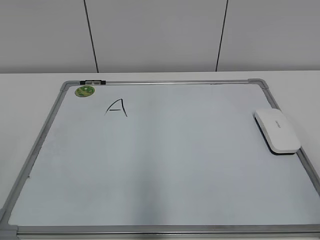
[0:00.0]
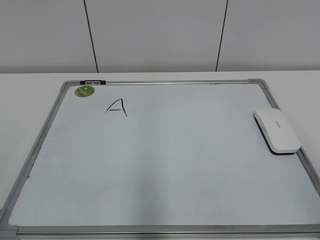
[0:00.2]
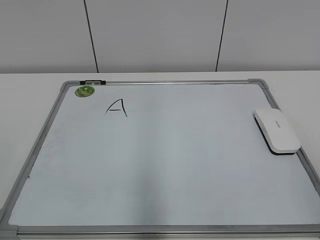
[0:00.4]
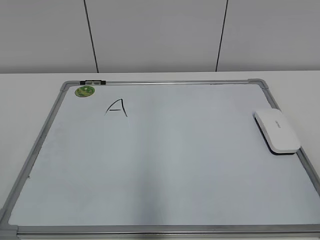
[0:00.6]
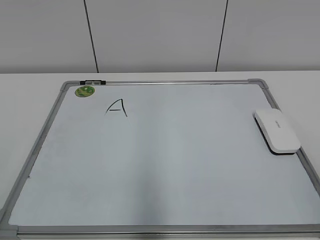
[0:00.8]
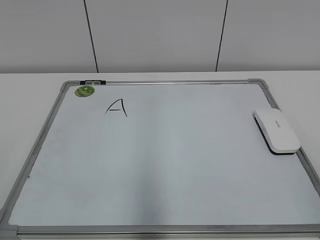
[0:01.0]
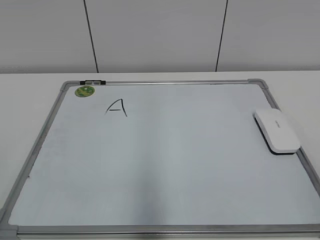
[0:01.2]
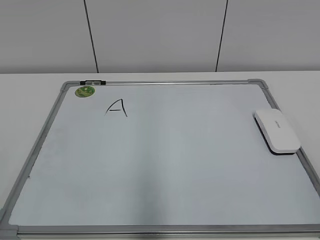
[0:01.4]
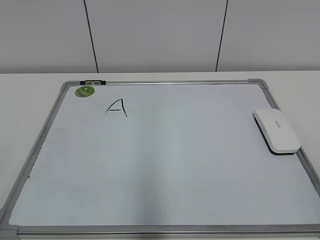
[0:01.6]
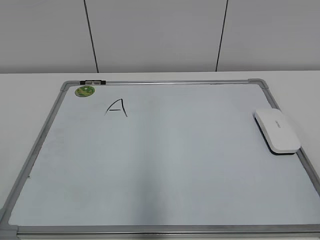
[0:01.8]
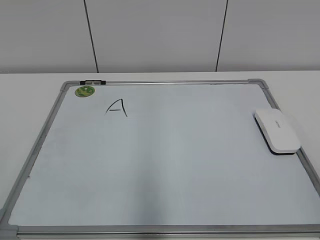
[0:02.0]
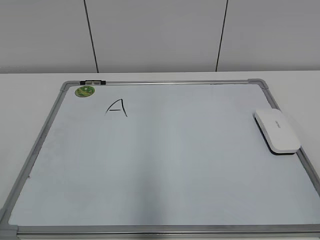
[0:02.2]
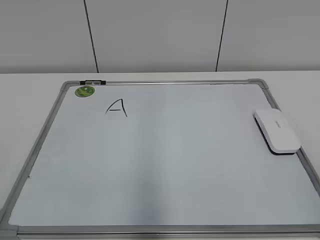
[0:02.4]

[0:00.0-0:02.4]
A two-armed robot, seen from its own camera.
Task of the whole recording: pick up the eraser on the blackboard and erase the letter "a".
0:01.2 to 0:02.4: The two grippers keep their place.

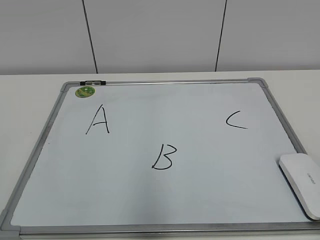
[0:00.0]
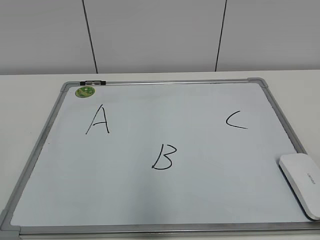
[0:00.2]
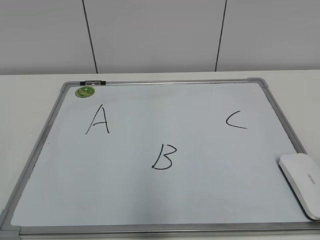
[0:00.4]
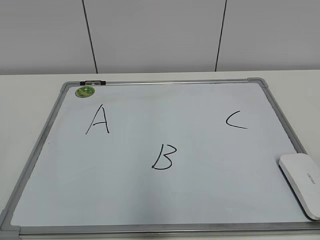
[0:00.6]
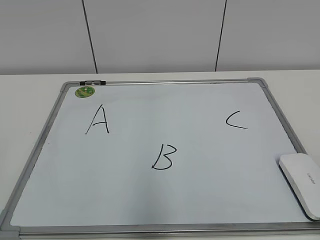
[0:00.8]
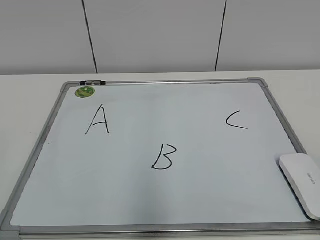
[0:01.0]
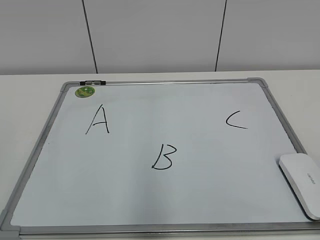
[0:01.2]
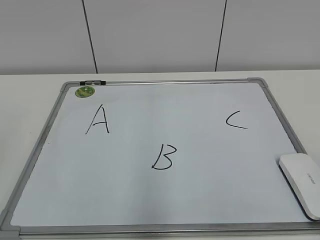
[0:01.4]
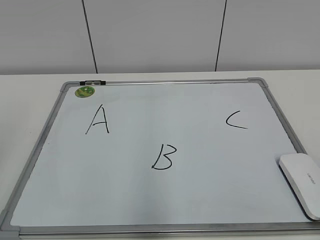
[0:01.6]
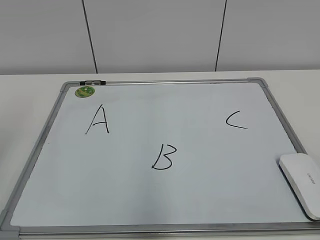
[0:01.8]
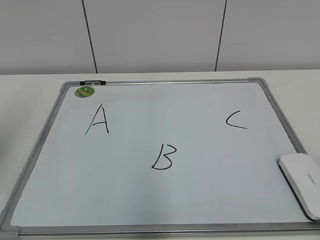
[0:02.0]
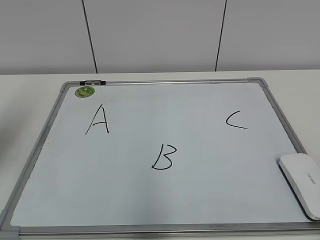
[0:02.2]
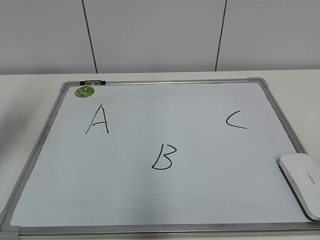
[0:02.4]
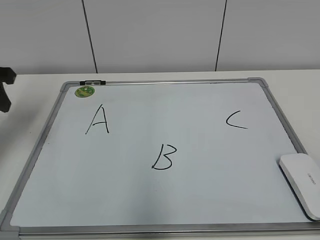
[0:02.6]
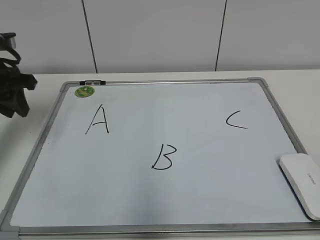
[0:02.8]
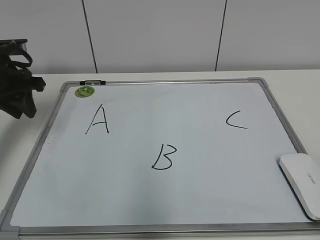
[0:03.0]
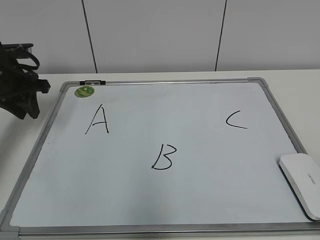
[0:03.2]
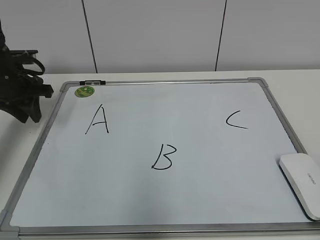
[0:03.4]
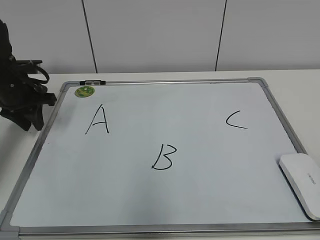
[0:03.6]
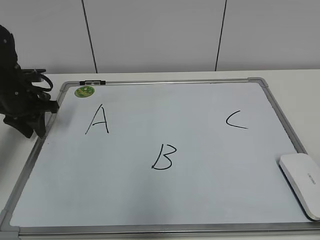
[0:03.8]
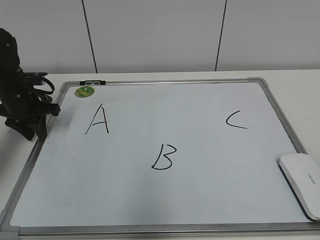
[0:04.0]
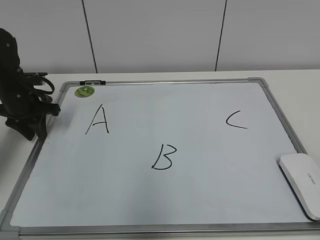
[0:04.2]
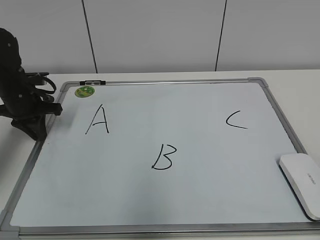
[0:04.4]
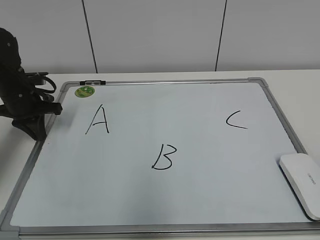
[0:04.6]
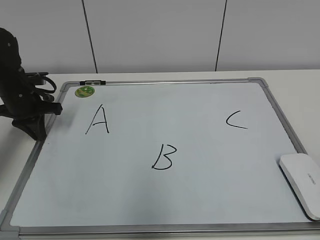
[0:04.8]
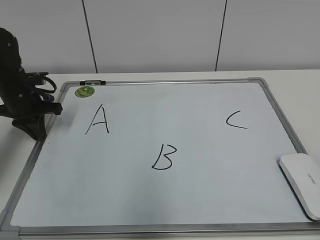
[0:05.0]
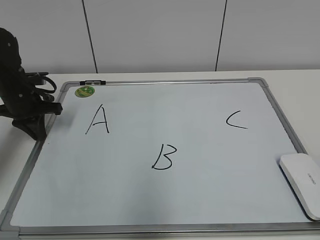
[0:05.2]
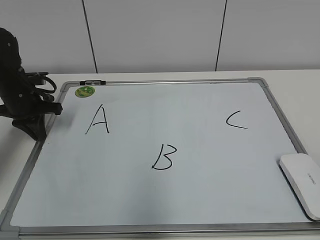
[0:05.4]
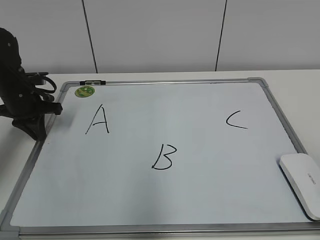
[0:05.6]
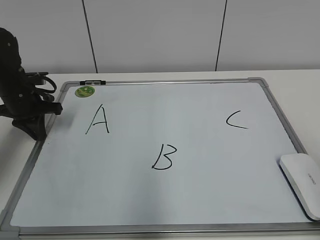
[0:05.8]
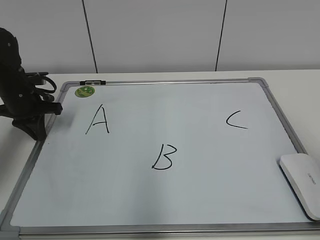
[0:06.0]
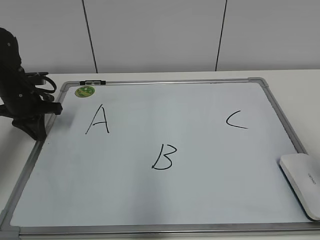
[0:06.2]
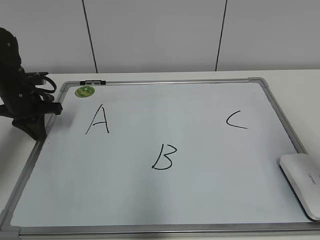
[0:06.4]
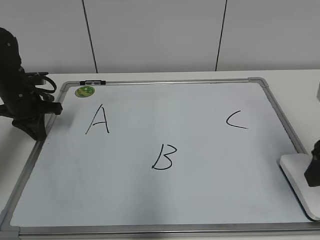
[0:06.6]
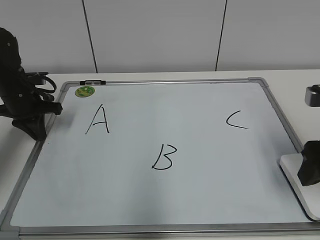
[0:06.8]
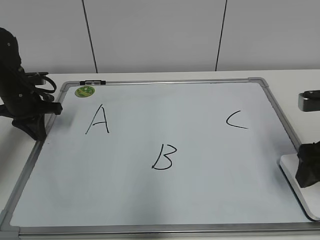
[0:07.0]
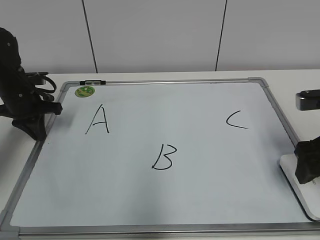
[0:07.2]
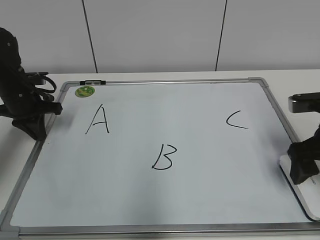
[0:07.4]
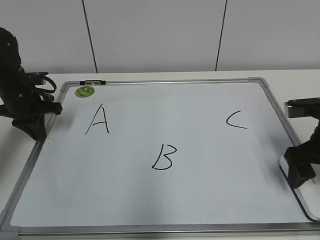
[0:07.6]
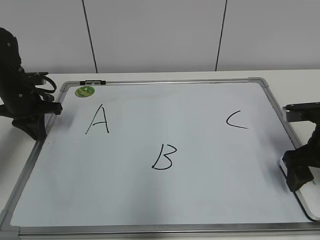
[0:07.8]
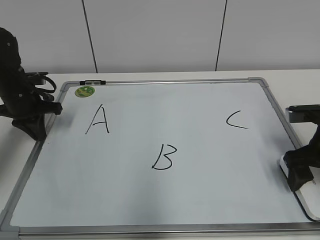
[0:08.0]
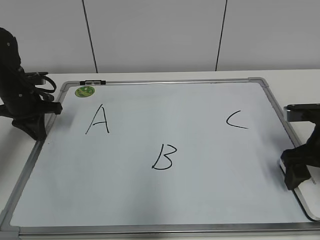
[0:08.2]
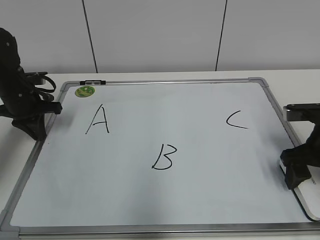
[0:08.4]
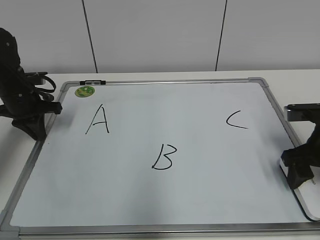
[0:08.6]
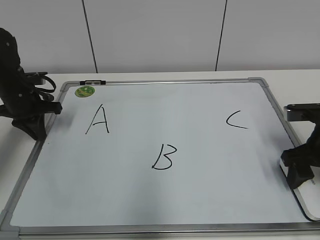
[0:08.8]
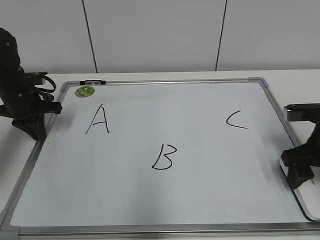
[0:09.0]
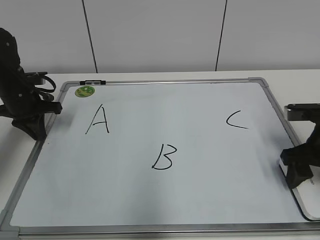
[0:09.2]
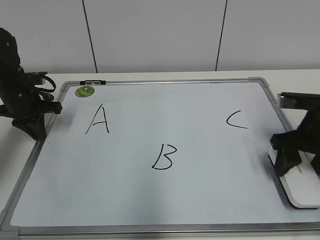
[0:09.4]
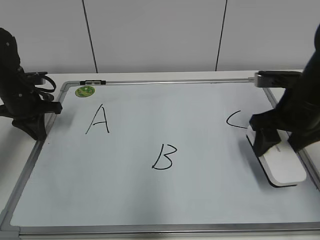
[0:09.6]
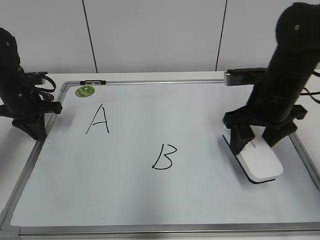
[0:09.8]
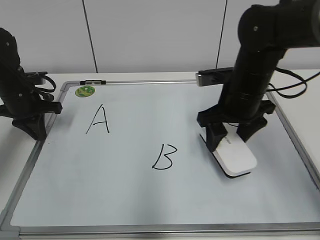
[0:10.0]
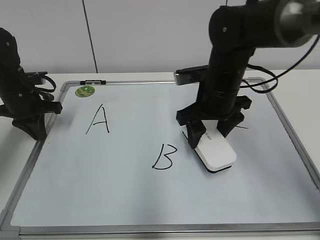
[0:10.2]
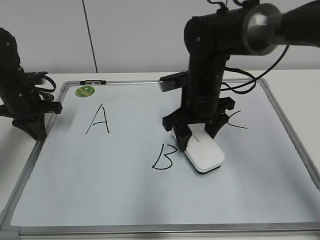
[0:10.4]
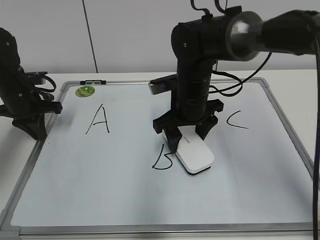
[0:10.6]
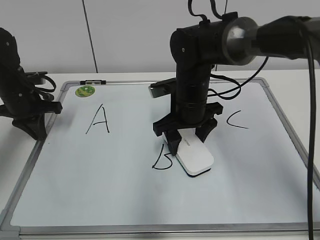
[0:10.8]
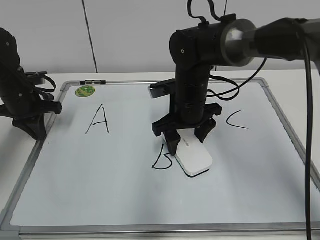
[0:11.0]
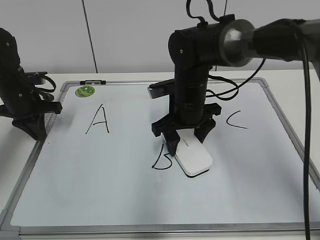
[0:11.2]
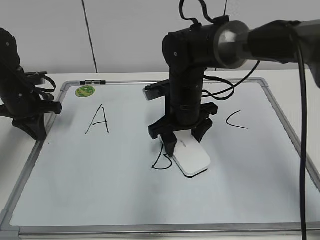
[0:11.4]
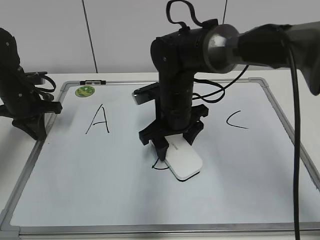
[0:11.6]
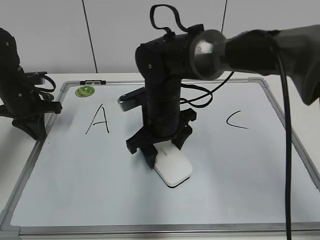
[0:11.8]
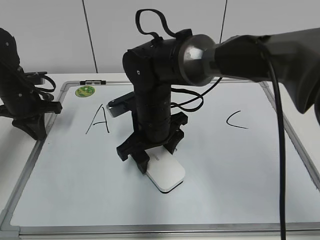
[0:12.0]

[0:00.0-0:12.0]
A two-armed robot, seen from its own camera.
Task of the whole recording: pick up the eraser on the blackboard and erase the letter "B".
Step, 0:00.0 to 0:04.4: Hold the drawing board steady with your left hand.
Step, 0:04.8 to 0:09.0: Grab the eraser with your right hand.
0:01.6 to 0:03.0: The left gripper heads forward, covering about 30 cm.
0:03.0 to 0:04.4: The left gripper travels downward by about 10 cm, and closes its fingers.
0:06.0 to 0:07.6: The right gripper shifts about 20 cm forward and downward, and opens up.
0:07.6 to 0:09.0: The right gripper closes.
0:09.0 to 0:10.4: The right gripper moves to the left and forward, roughly 20 cm.
0:10.4 to 0:12.0: The right gripper shifts approximately 10 cm to the left.

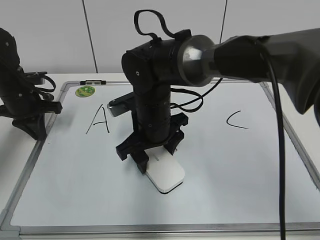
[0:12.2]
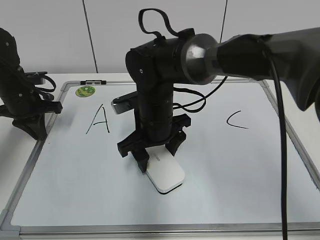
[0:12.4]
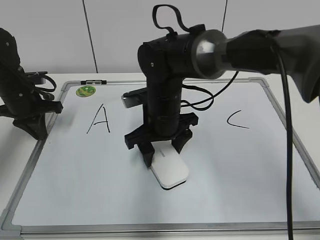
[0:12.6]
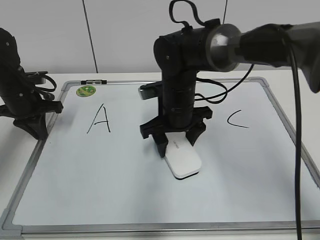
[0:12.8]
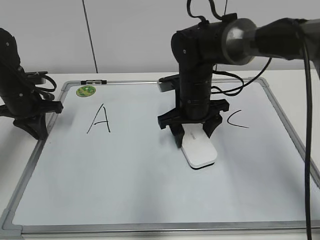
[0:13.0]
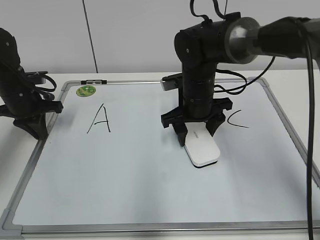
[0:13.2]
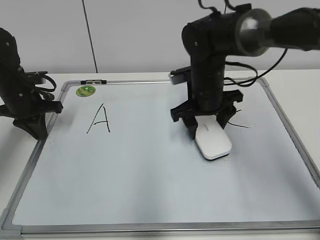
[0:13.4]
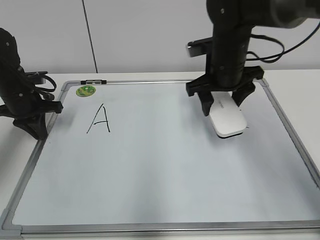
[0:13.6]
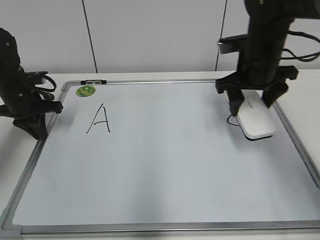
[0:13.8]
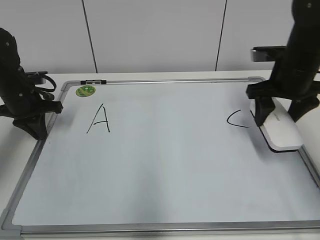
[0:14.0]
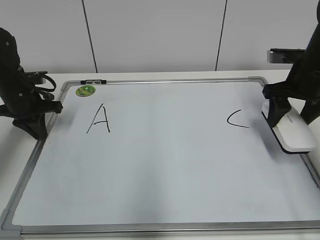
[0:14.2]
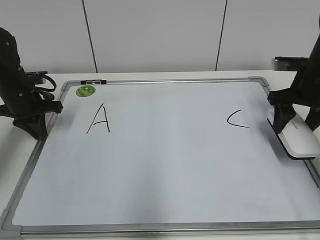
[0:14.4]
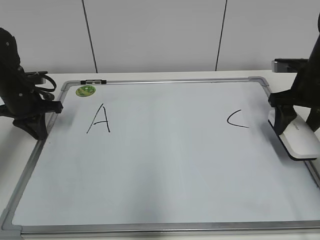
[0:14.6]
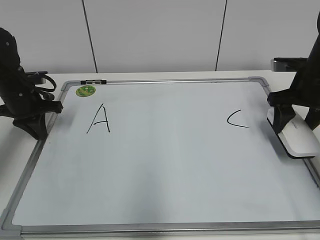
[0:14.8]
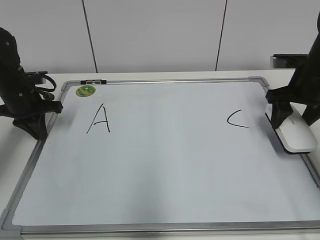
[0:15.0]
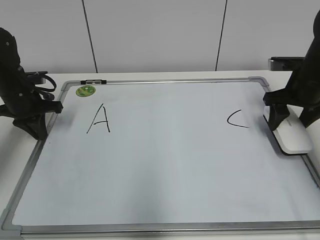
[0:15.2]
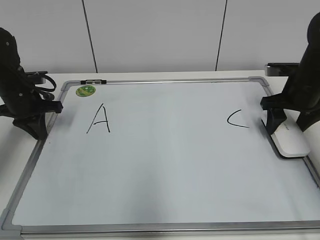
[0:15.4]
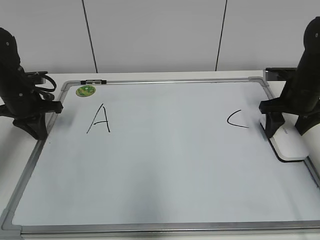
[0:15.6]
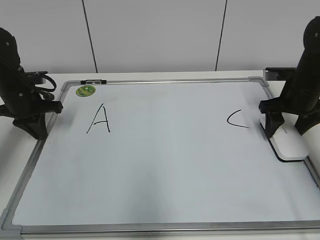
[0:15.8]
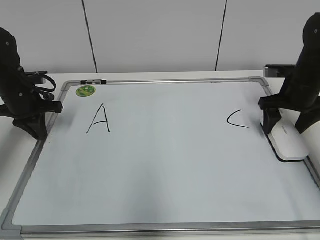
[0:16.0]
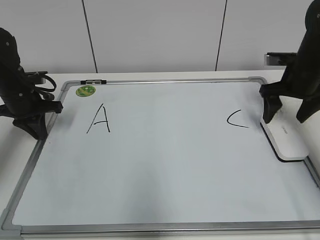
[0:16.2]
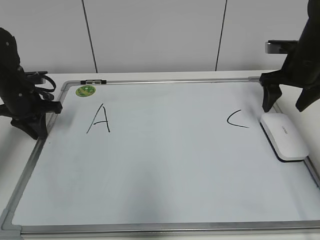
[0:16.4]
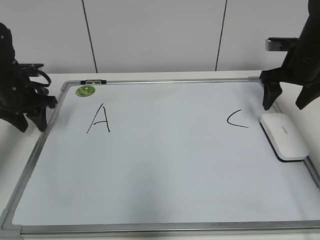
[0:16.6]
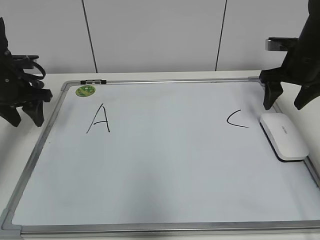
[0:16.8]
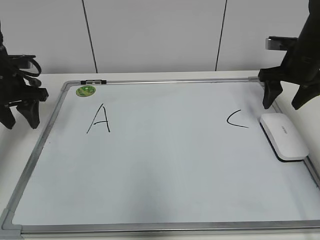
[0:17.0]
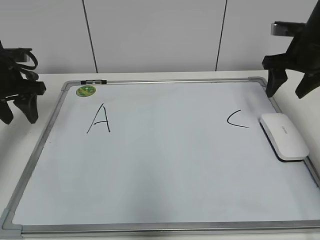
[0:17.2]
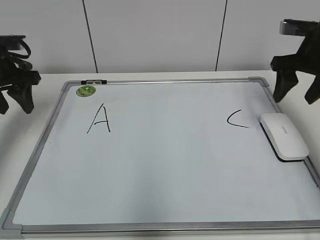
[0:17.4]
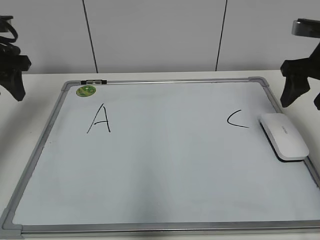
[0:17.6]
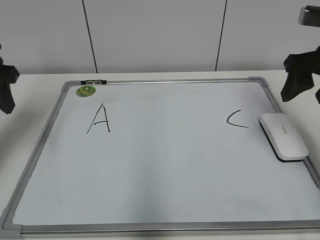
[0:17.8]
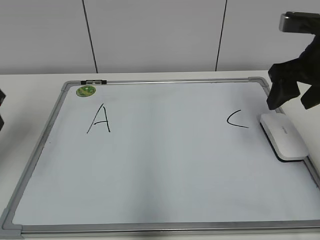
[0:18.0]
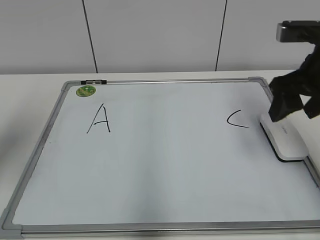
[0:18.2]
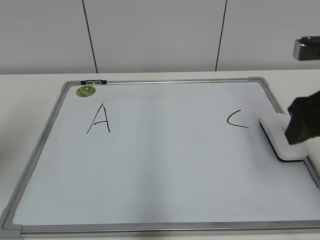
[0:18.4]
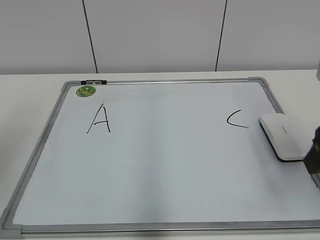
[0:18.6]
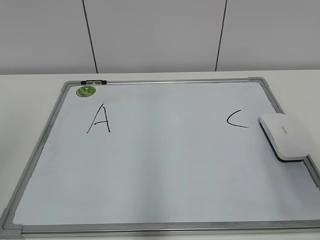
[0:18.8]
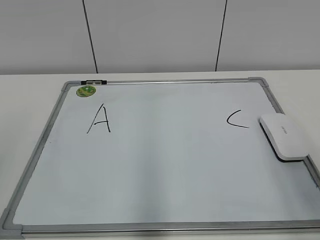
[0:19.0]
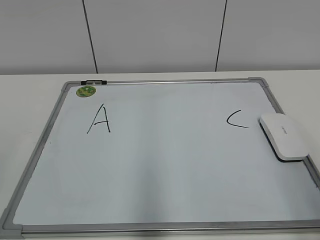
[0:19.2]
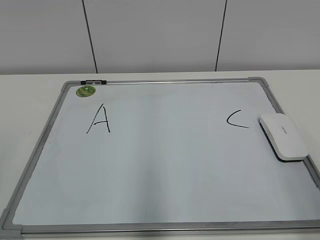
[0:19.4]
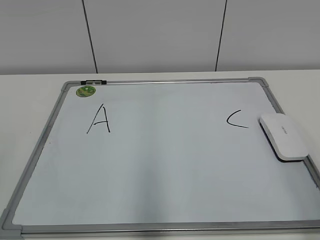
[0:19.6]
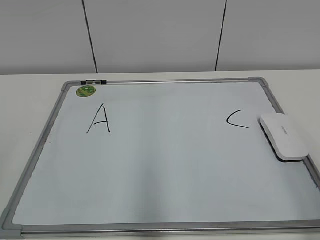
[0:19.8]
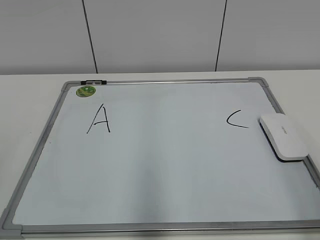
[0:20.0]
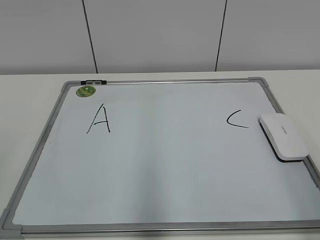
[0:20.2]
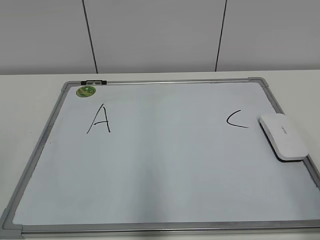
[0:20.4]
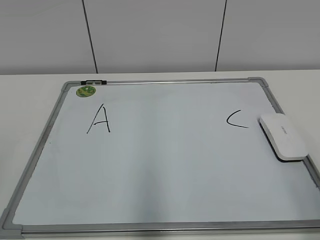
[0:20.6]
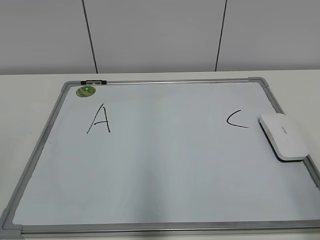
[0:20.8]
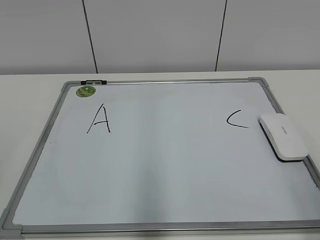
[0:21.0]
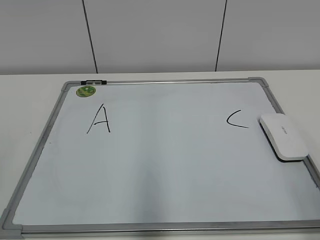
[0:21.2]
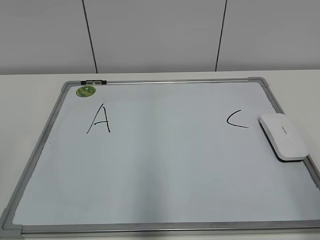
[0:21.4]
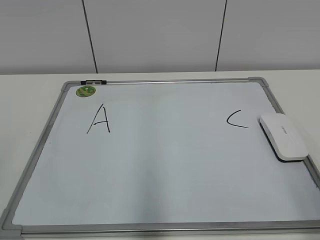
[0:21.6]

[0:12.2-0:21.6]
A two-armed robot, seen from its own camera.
Task of the whole recording: pick up the eraser on the blackboard and erase the letter "B".
Step, 0:13.2 to 0:15.6: Put down the eraser with your right hand.
0:12.2 to 0:13.8: The right gripper shifts some 20 cm to the right and upward.
0:13.8 to 0:15.4: The right gripper moves to the right and downward, some 10 cm.
0:15.4 to 0:17.0: The right gripper opens, then closes once more; the left gripper travels upward by about 5 cm, and opens up.
0:17.0 to 0:18.4: The right gripper heads backward, covering approximately 20 cm. Meanwhile the left gripper travels backward and upward by some 25 cm.
0:18.4 to 0:20.0: The right gripper travels backward by roughly 20 cm.
